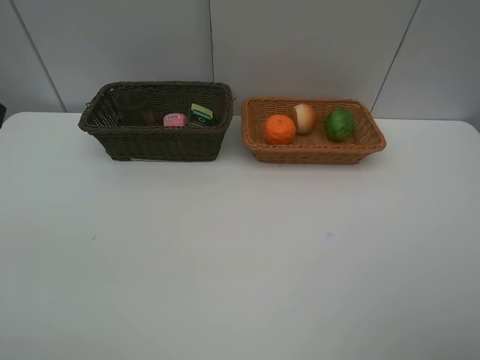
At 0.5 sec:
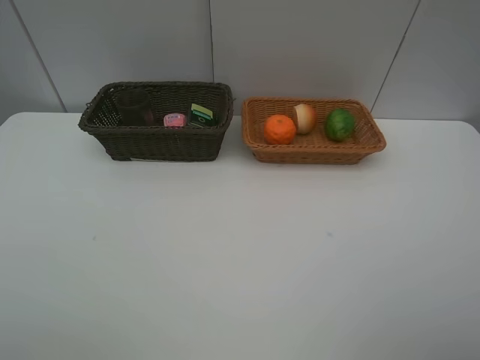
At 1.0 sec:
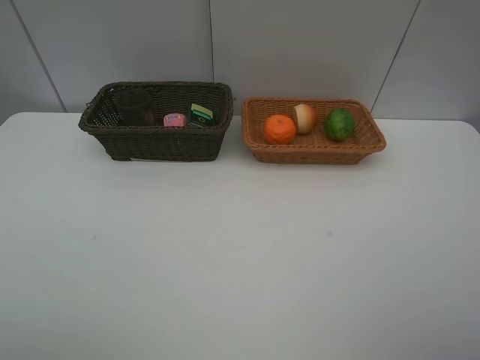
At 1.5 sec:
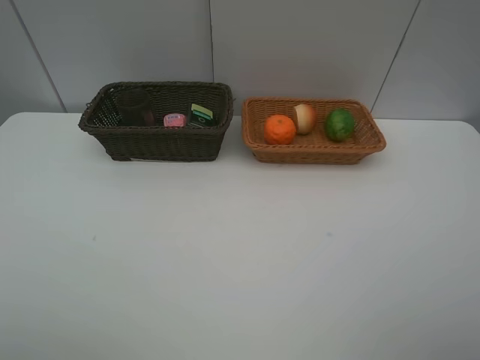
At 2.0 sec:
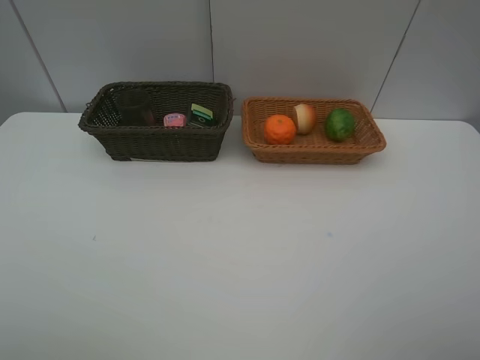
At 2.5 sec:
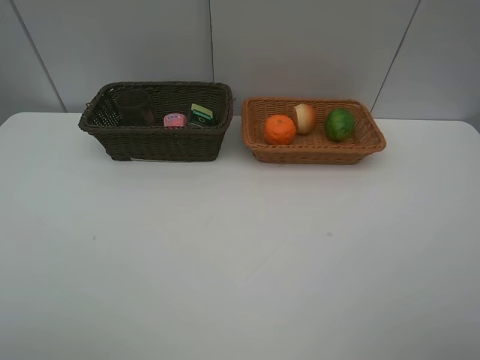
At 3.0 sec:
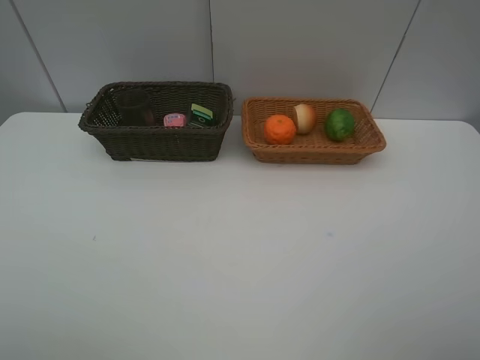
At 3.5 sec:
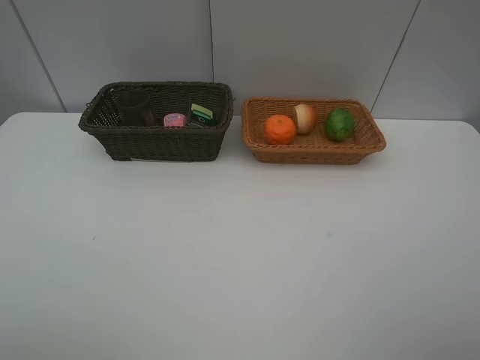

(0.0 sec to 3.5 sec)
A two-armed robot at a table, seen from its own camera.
Task of the whole recording: place multiple objects separately in different baskets.
2.0 sec - 3.5 sec: Both grippers stay put.
